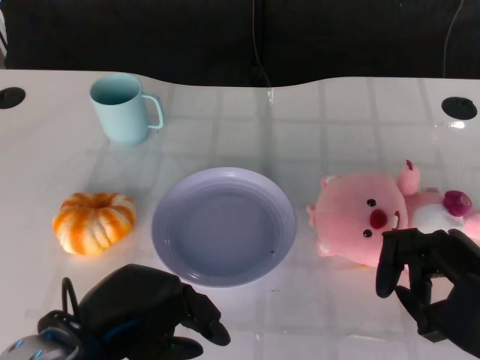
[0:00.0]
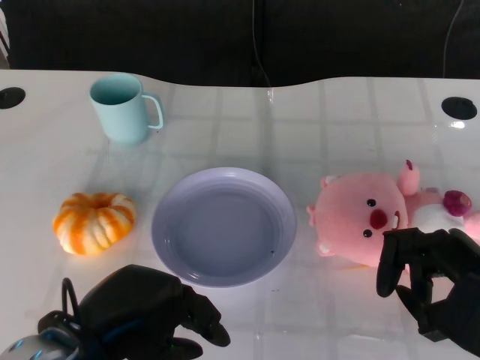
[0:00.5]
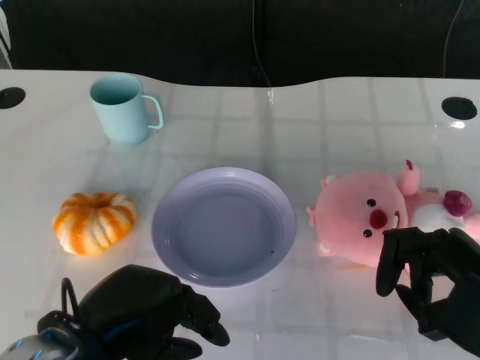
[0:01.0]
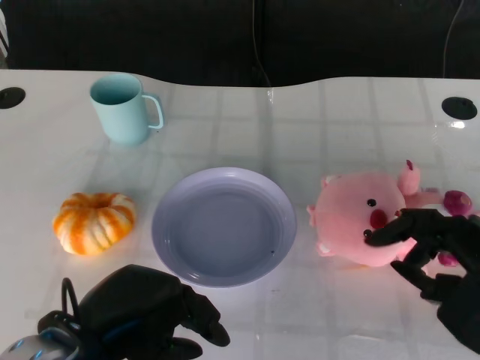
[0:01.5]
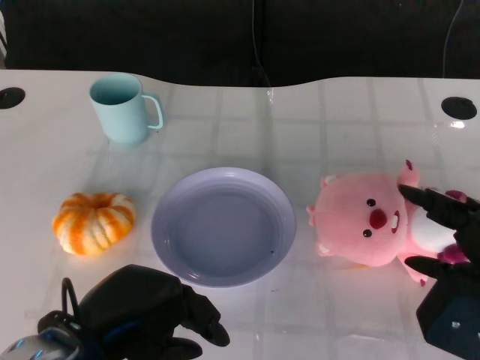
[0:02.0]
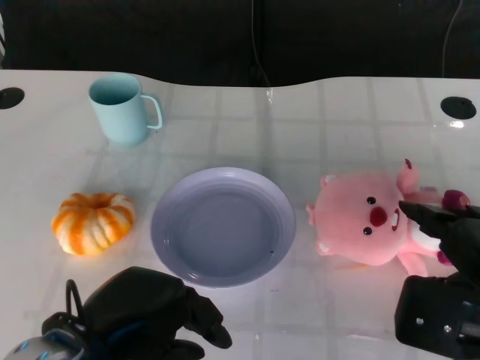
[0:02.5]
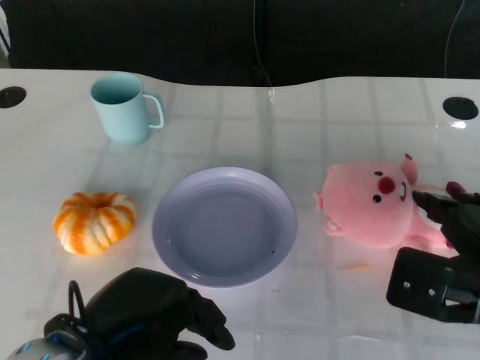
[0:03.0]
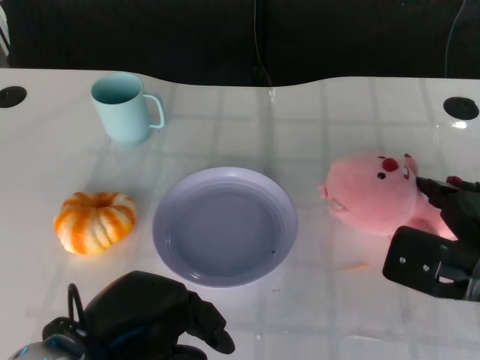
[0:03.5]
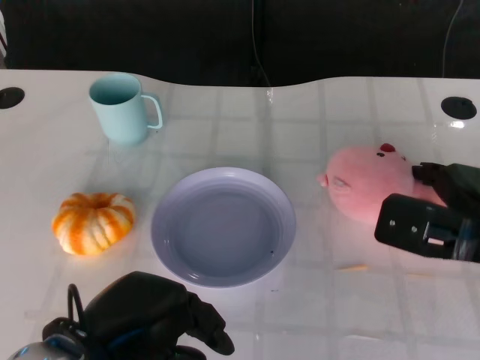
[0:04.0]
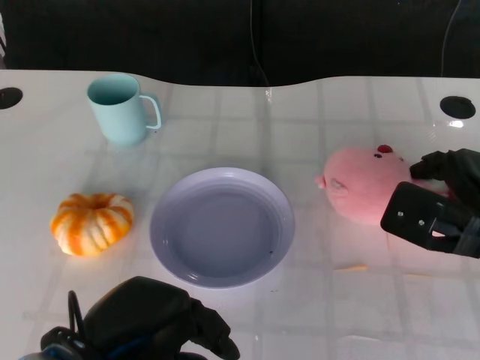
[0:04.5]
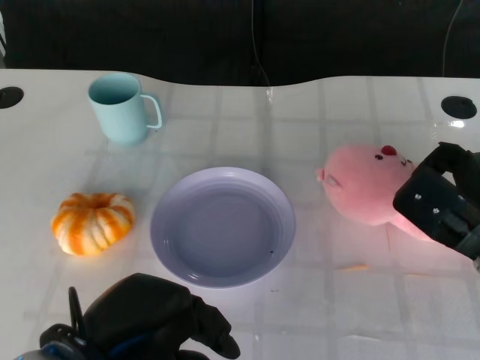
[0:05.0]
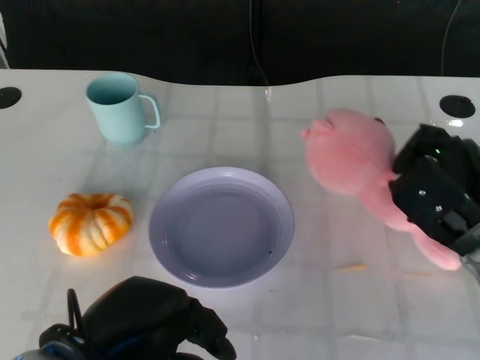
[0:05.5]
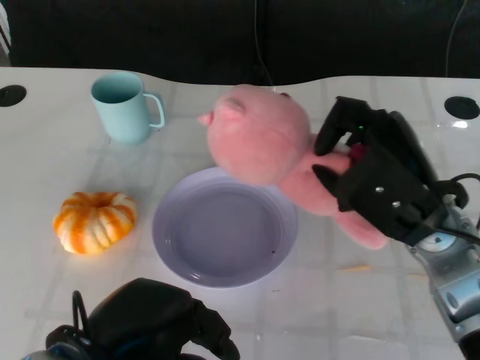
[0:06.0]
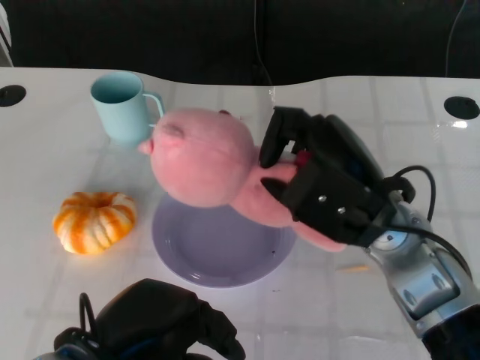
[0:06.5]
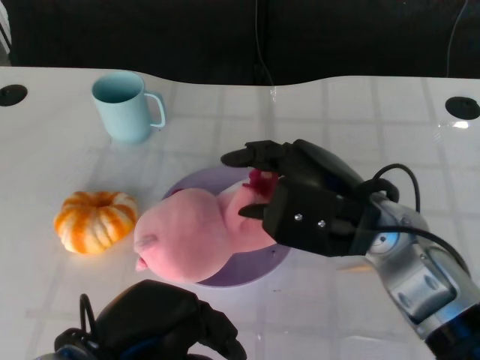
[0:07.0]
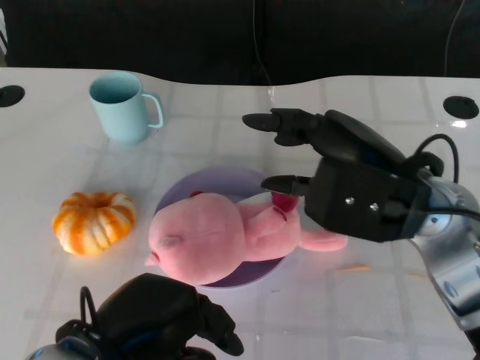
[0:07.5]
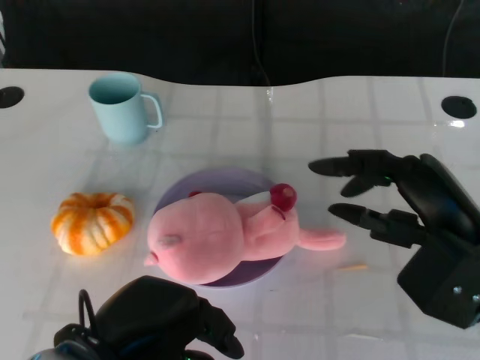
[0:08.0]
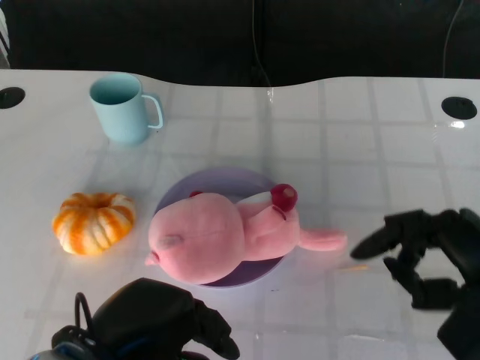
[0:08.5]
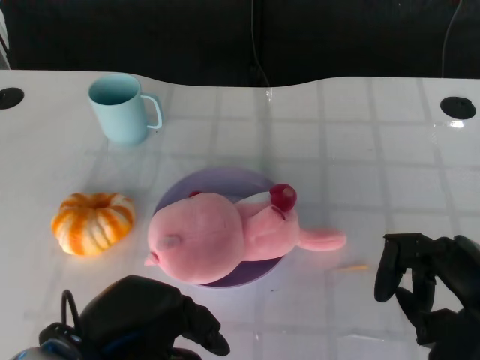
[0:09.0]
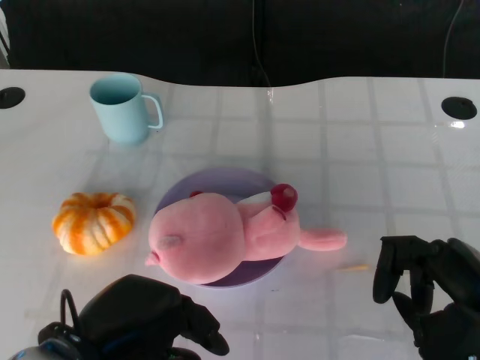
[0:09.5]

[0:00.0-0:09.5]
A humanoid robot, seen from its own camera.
Task of the whole recording: Pick up the doll on the other side of the plate and place it into the plate.
Step, 0:01.5 to 0:06.0: Grasp the pink doll with the right gripper.
Step, 0:06.5 to 0:08.0: Place the pink doll into the plate with the right gripper.
0:02.0 to 0:04.0: The right hand moves forward, approximately 10 cm.
0:05.5 to 0:07.5: The right hand is displaced upward and to the left by about 10 cm.
0:07.5 to 0:09.5: The right hand shifts about 15 cm backward, to the right and downward.

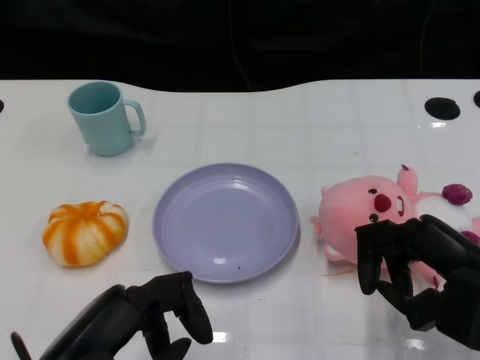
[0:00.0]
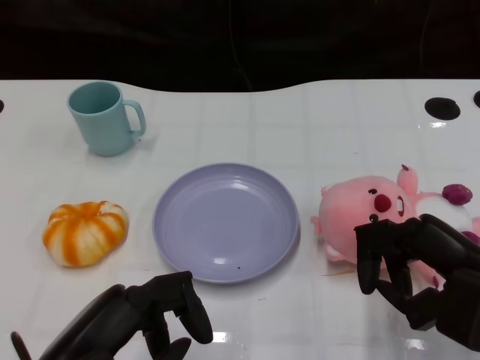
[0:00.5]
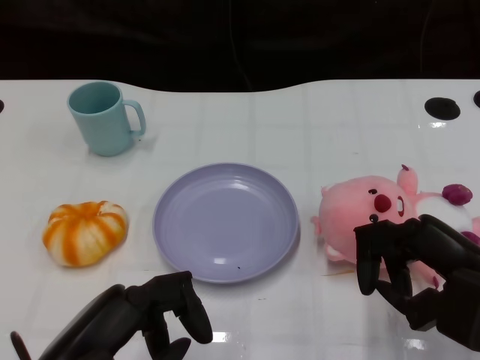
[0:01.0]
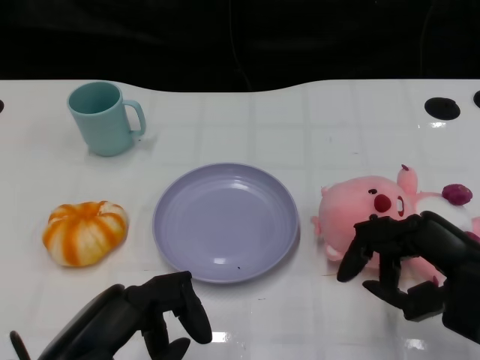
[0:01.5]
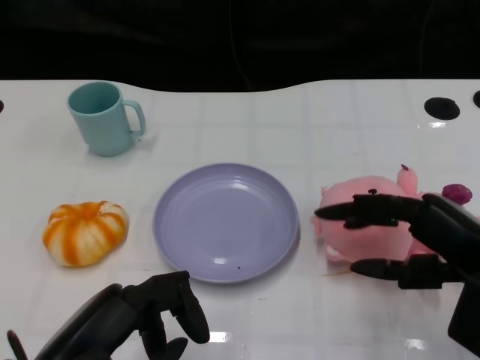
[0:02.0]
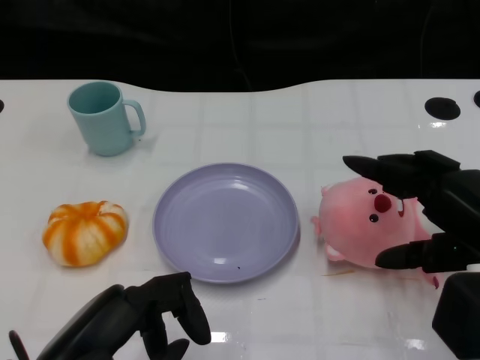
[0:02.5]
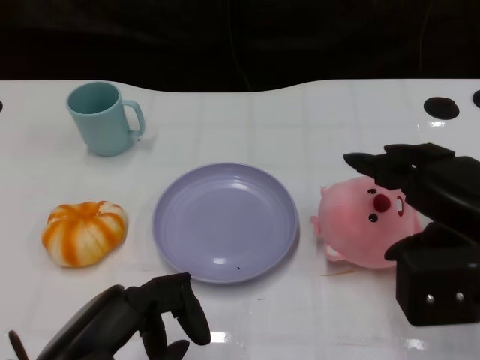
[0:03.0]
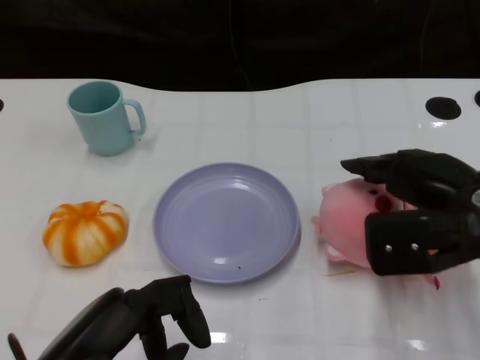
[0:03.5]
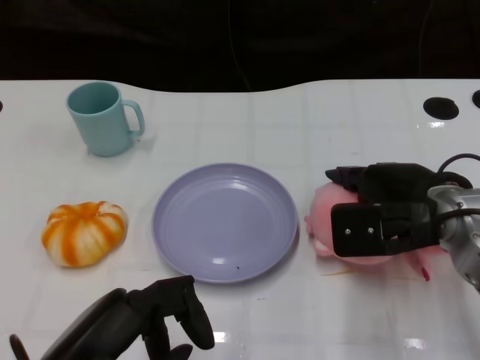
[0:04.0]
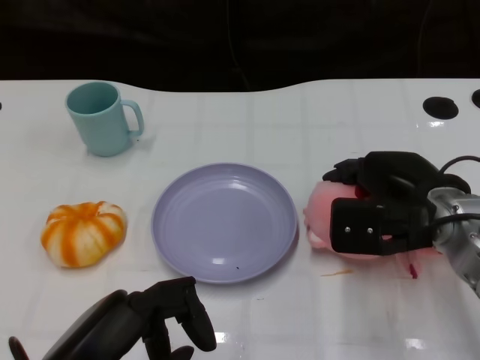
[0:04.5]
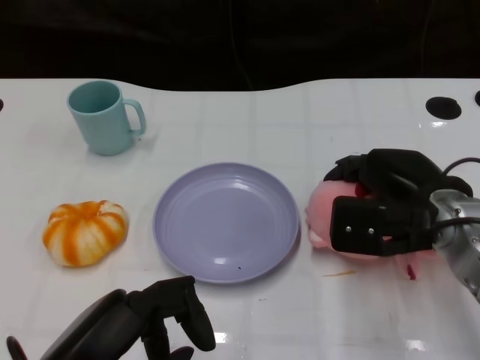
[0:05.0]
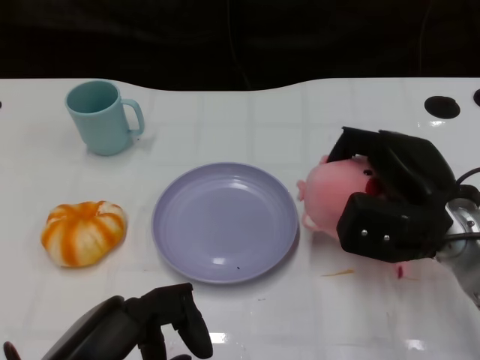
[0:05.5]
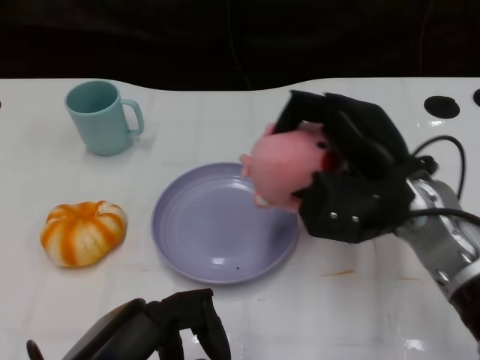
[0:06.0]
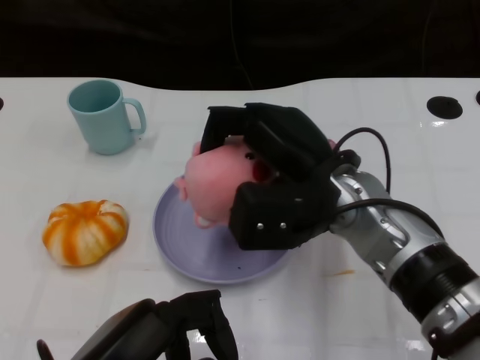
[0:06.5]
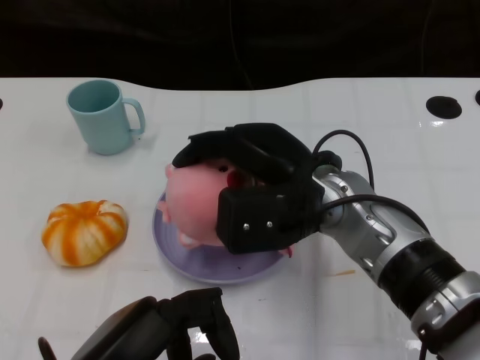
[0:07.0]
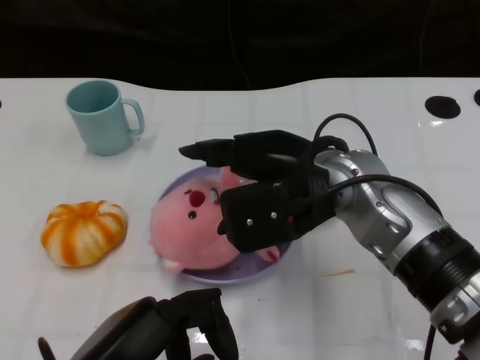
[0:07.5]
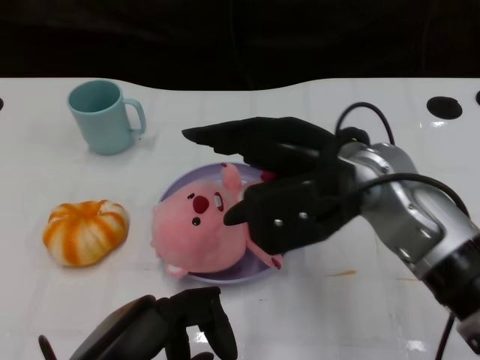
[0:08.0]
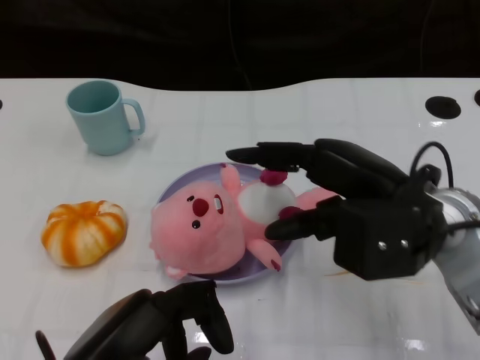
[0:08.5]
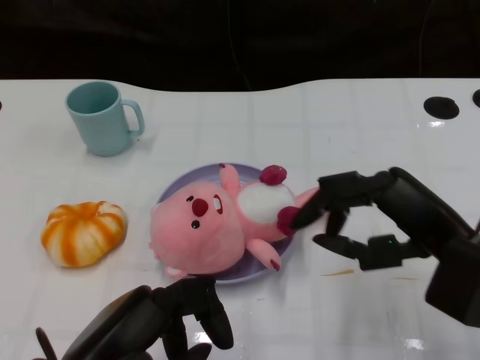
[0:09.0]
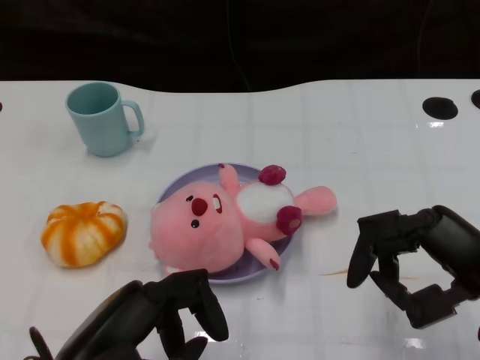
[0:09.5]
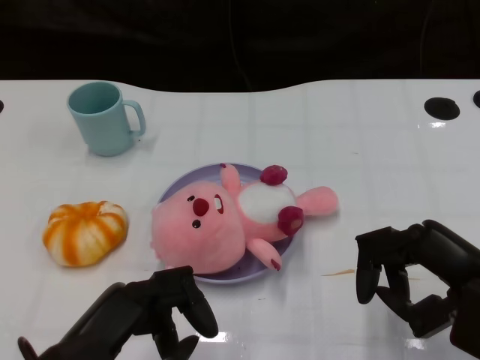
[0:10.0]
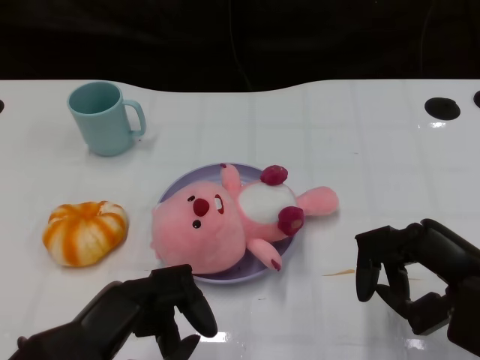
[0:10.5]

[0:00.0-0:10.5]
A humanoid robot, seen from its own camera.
Task of the whole recording: Pick up the doll on the other side of the plate and place it into the plate.
Step, 0:01.5 to 0:06.0: Grasp the pink doll with the right gripper.
Step, 0:06.5 to 0:08.0: Place the pink doll into the plate with the right gripper.
0:02.0 to 0:04.0: The right hand heads forward and to the left, covering approximately 10 cm.
0:04.0 to 0:06.5: The right hand travels to the left by some 10 cm.
0:06.5 to 0:08.5: The right hand goes about 10 cm to the right.
0:08.5 to 0:10.5: The right hand is displaced to the right, backward and downward by some 10 cm.

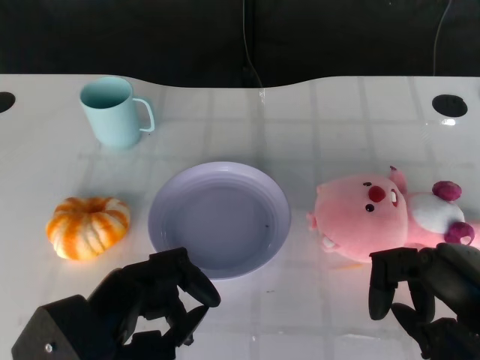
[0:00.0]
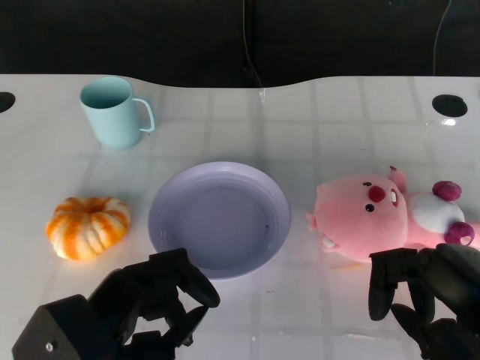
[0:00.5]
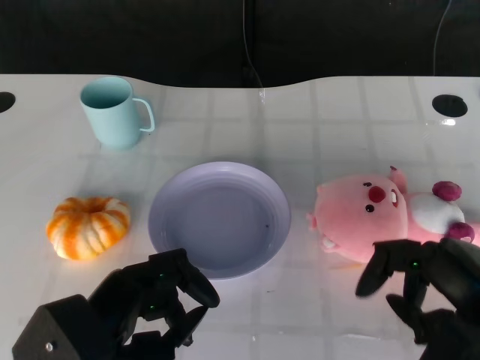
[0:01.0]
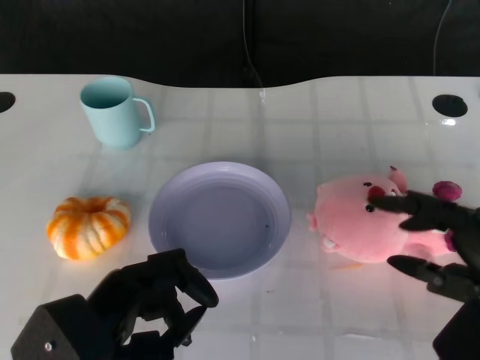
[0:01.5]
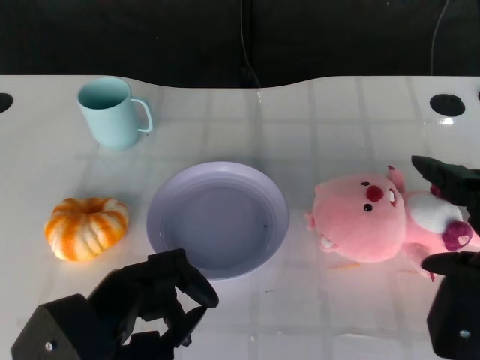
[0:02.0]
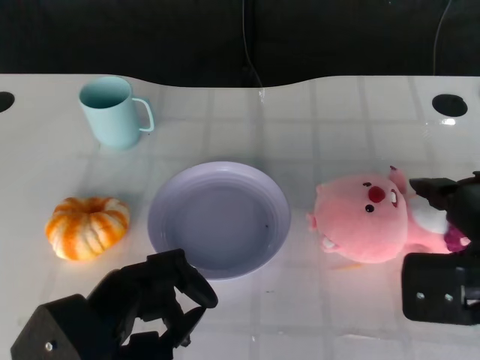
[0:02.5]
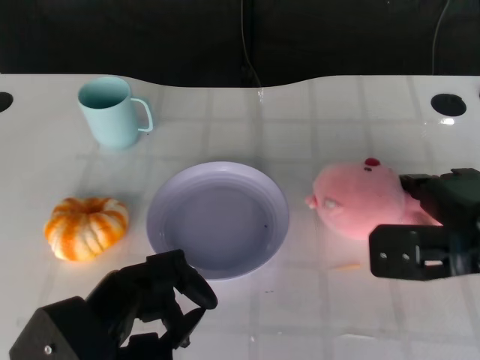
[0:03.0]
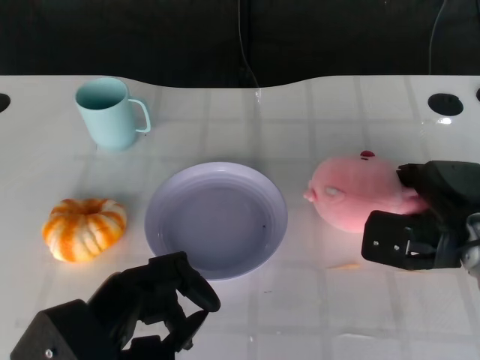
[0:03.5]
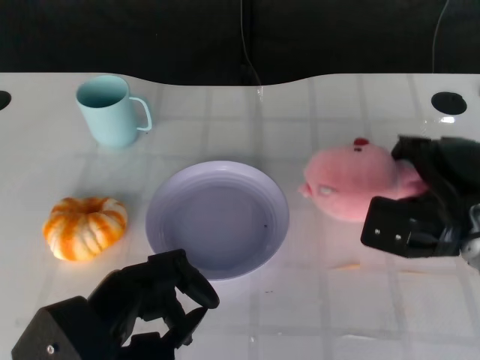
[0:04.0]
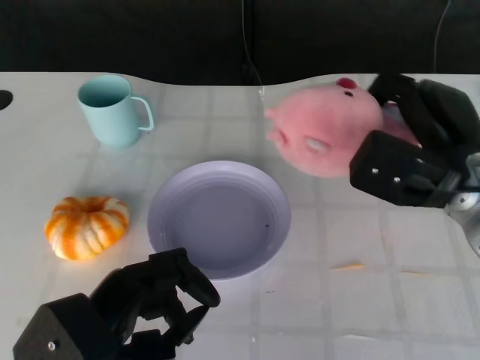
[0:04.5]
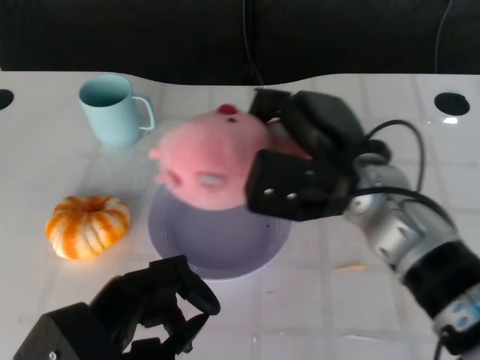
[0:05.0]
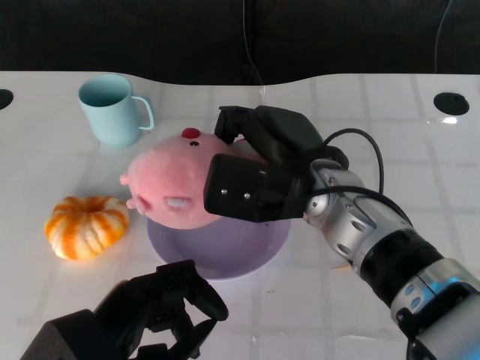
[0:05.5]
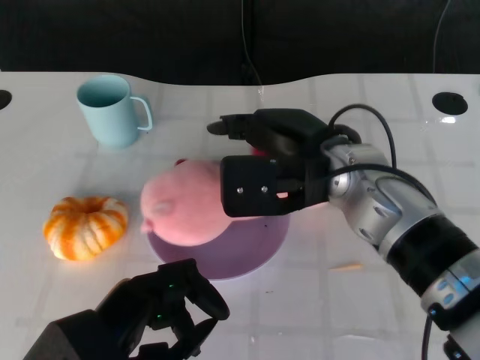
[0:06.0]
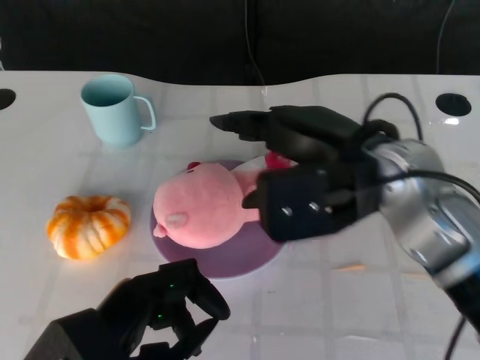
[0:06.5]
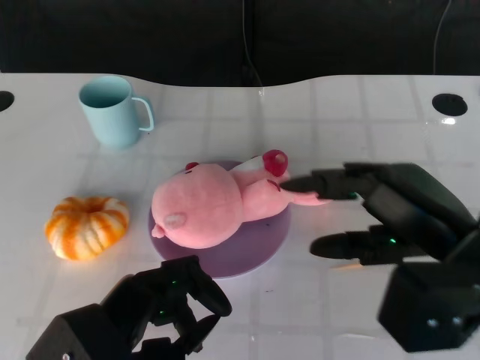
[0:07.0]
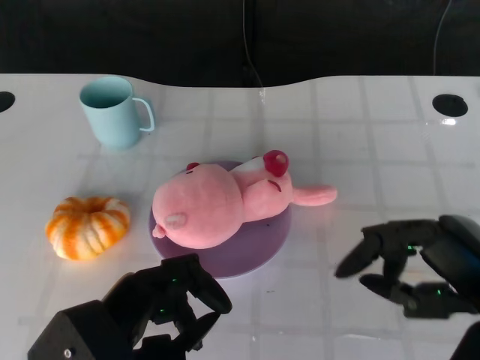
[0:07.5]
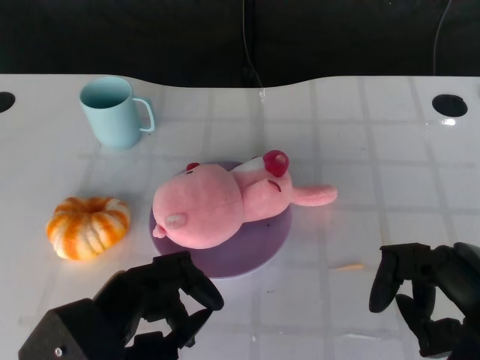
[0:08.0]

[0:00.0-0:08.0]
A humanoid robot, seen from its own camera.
Task of the whole recording: Pick up the doll on the other side of the plate and place it into the plate.
Step, 0:01.0 to 0:04.0: Grasp the pink doll with the right gripper.
Step, 0:04.5 to 0:06.0: Place the pink doll into the plate with the right gripper.
0:02.0 to 0:04.0: The right hand shifts some 15 cm forward and downward.
0:04.0 to 0:06.0: The right hand travels to the left and upward by about 15 cm.
0:06.0 to 0:08.0: The right hand heads to the right and backward, covering about 25 cm.
